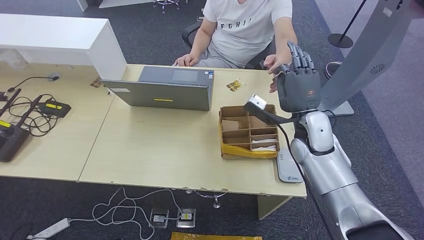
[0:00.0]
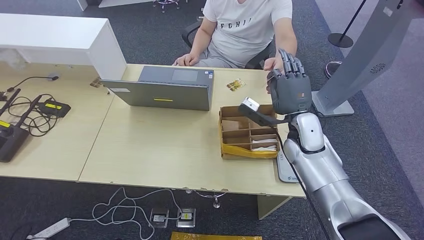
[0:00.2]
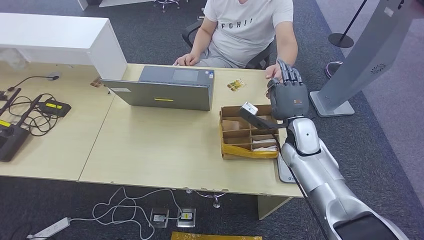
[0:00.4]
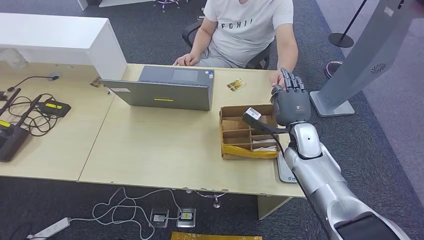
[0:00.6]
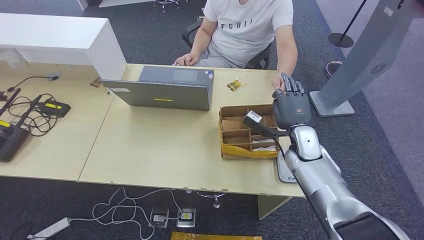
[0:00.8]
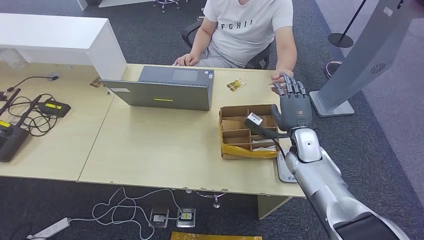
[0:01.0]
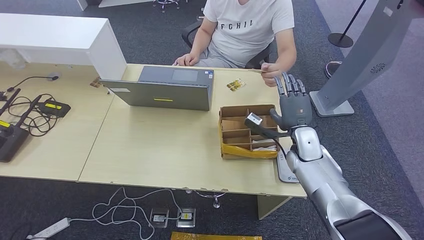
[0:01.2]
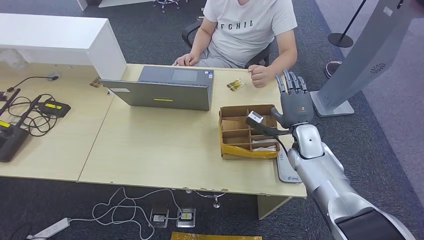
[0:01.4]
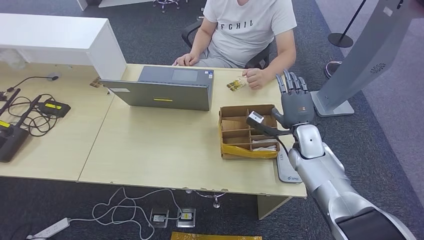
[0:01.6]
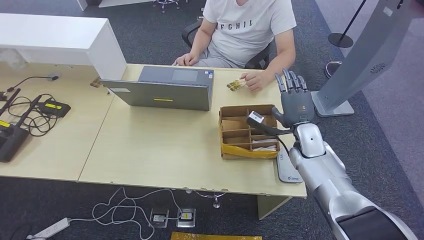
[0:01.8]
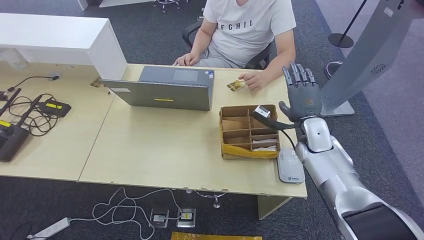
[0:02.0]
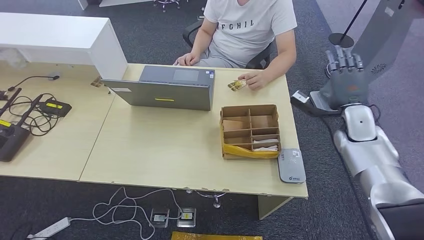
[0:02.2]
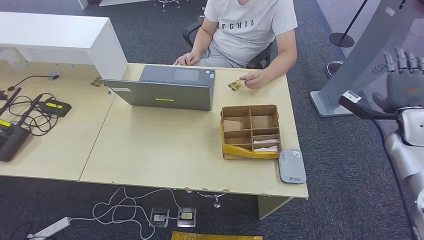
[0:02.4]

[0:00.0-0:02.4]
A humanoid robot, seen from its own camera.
Step, 0:00.0 to 0:02.4: Hand the room key to the person.
0:00.0 to 0:01.2: The right hand moves downward, roughly 10 cm.
0:01.2 to 0:02.4: The right hand is displaced to the right and upward by roughly 25 cm.
